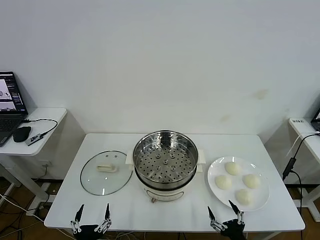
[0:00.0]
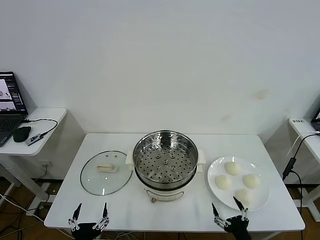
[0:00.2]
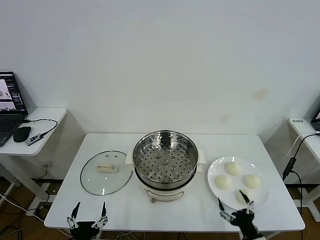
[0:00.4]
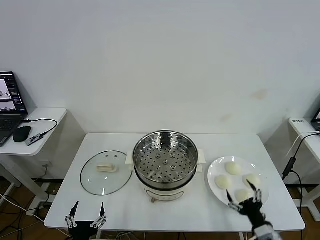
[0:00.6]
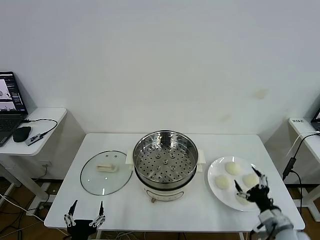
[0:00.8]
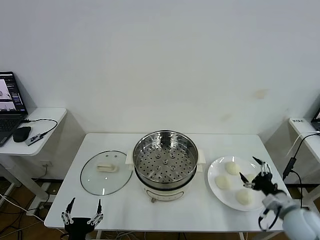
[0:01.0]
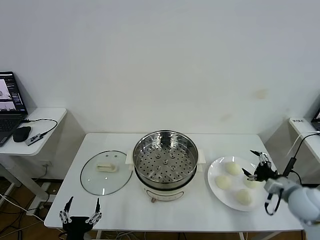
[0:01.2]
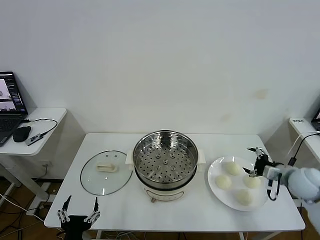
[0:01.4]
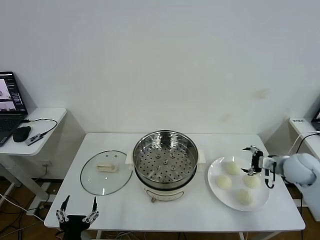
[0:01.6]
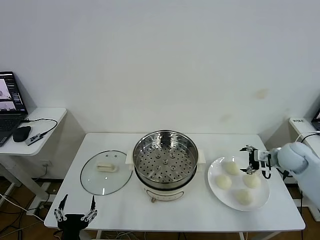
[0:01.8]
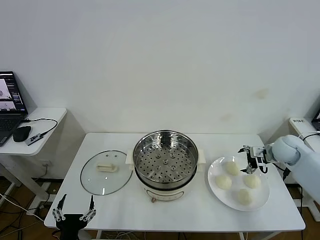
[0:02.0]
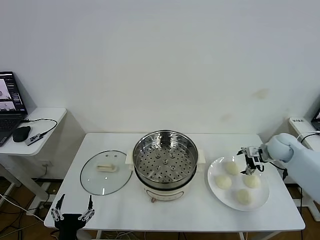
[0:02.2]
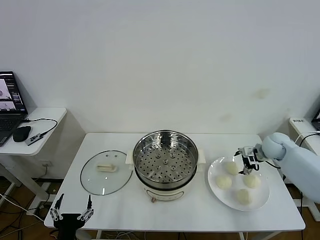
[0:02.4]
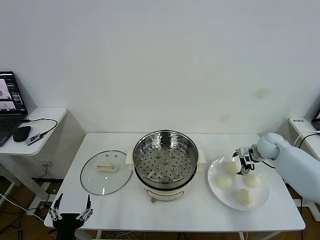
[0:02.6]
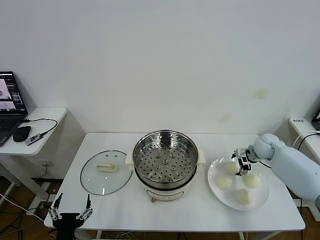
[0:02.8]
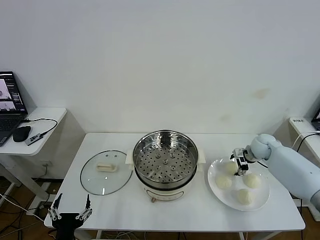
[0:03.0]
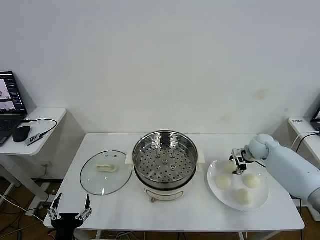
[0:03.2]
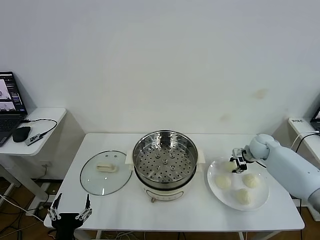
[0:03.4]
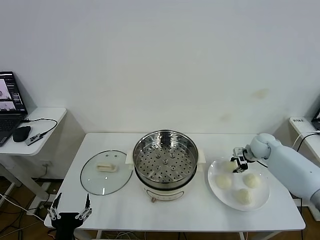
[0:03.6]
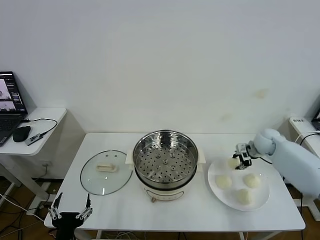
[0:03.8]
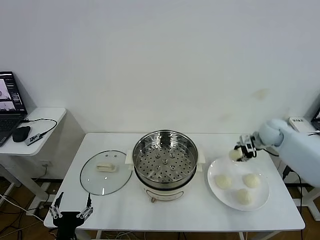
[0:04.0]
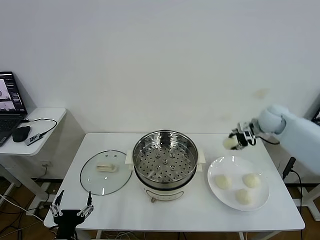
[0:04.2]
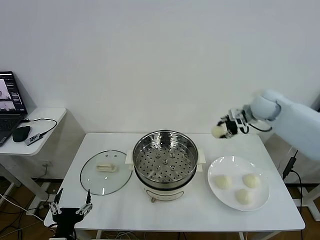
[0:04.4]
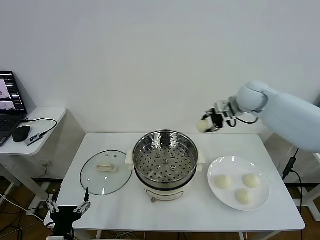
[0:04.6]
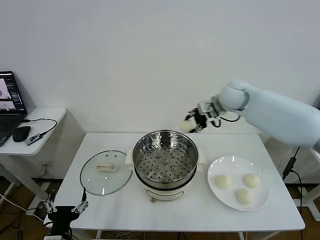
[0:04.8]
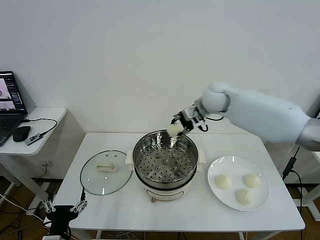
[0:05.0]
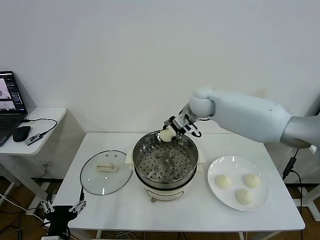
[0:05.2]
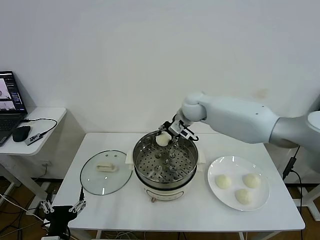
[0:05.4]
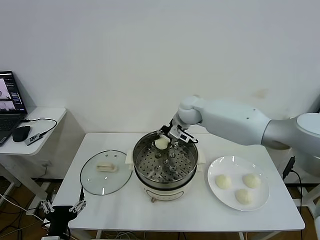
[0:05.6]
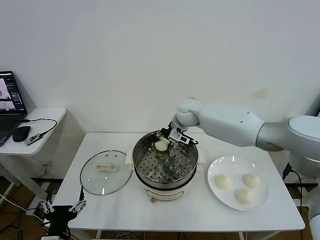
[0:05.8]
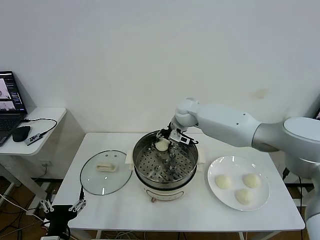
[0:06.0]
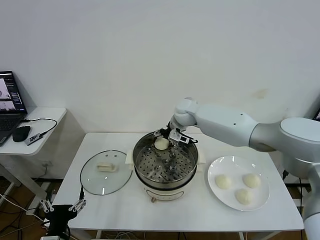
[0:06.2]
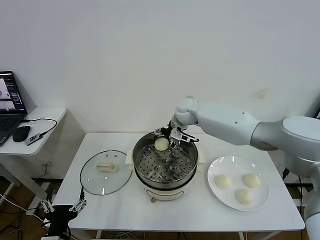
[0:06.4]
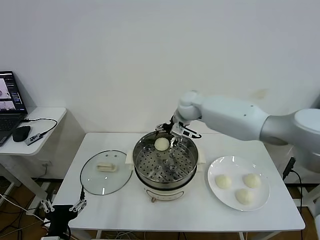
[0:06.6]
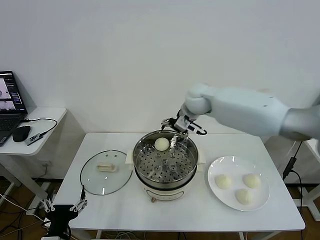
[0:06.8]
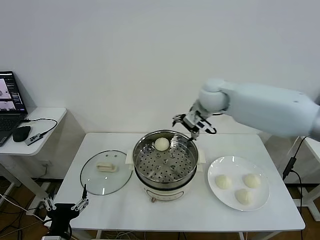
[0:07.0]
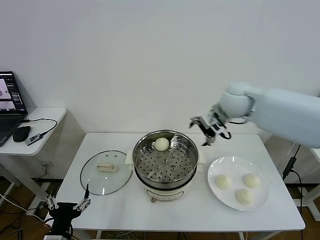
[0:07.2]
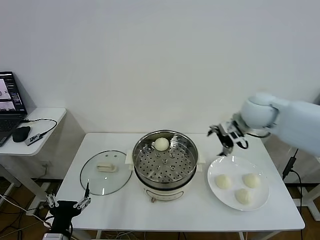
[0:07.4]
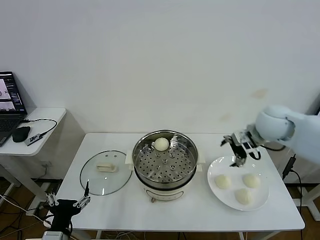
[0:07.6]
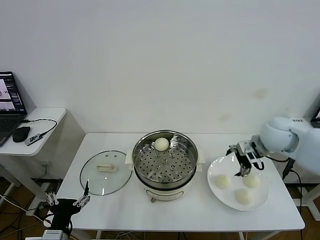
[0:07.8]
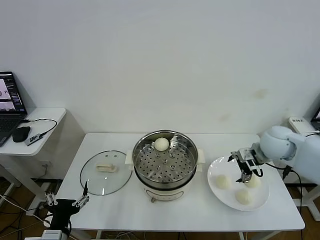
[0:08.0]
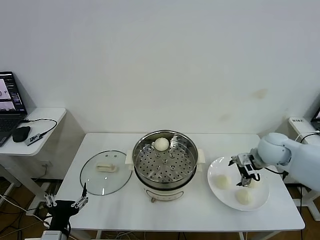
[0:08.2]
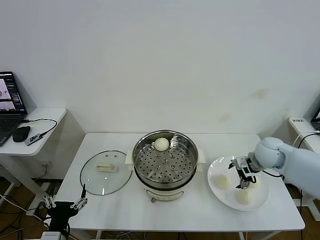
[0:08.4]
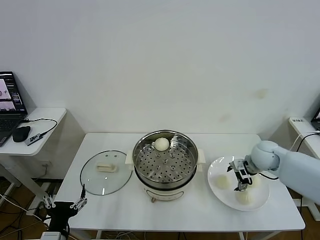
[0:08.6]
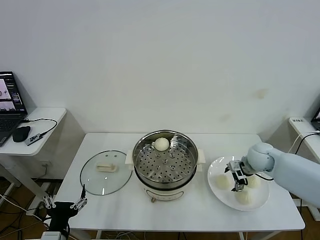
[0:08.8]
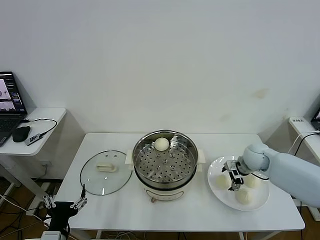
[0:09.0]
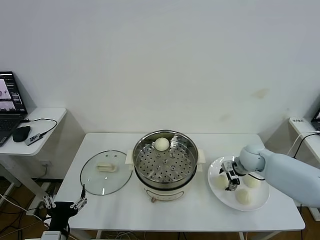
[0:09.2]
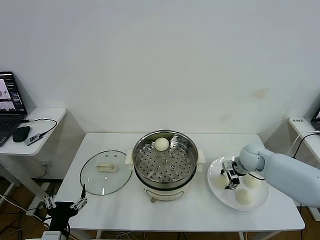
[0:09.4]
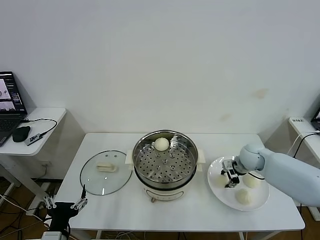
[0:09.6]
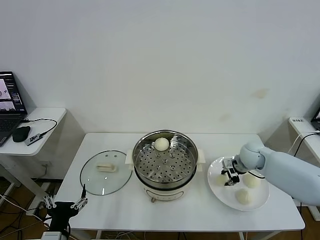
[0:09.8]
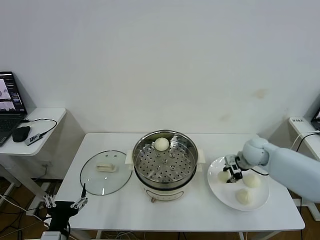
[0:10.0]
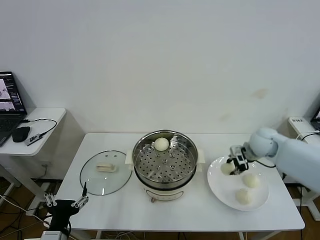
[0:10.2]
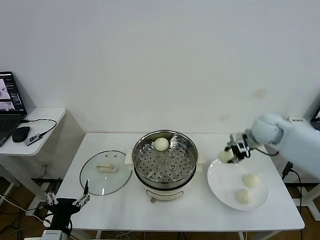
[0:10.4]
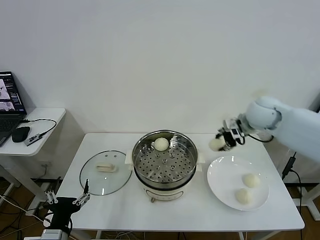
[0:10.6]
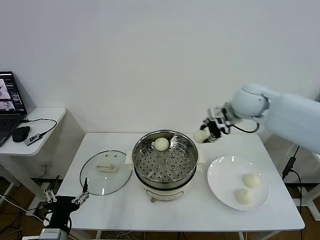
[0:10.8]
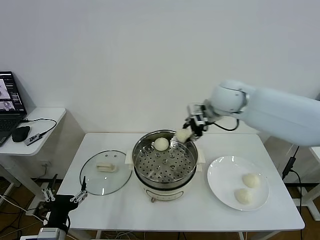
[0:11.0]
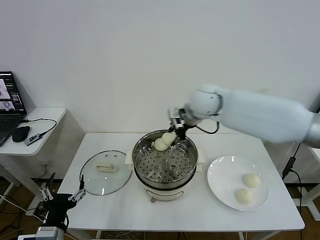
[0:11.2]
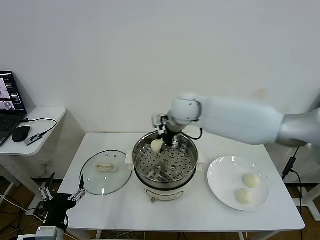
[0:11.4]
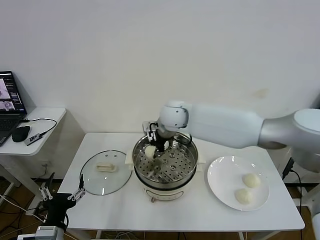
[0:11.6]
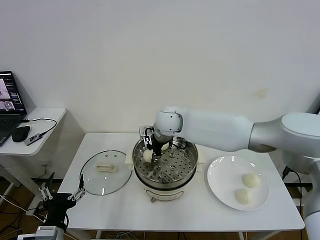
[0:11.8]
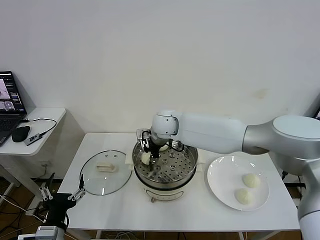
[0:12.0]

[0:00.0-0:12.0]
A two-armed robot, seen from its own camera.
Task of the whole recording: take steamed baozi put them in steamer then cover it.
Step, 0:00.0 to 0:03.2: Grasp the baozi in the plate with right gripper.
Step, 0:03.4 to 0:06.0: Place the baozi on the steamer with right gripper.
Step, 0:06.4 to 0:09.4: Grasp the baozi in the plate with right gripper.
0:01.6 to 0:03.0: The right gripper heads forward and downward, covering approximately 15 cm.
0:03.0 to 0:04.4: The right gripper goes some 20 cm upward, and closes.
0:04.4 to 0:06.0: The right gripper moves to the left, some 25 cm.
0:06.0 to 0:07.6: The right gripper travels to the right and backward by approximately 25 cm, and opens its fingers.
0:07.6 to 0:09.0: The right gripper goes about 20 cm downward.
0:09.0 to 0:10.4: The right gripper travels upward by roughly 10 cm, and closes up.
0:10.4 to 0:12.0: The right gripper moves to the left, some 35 cm.

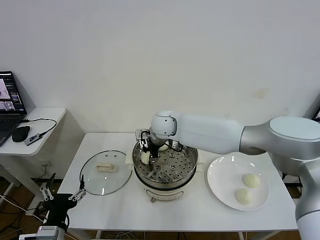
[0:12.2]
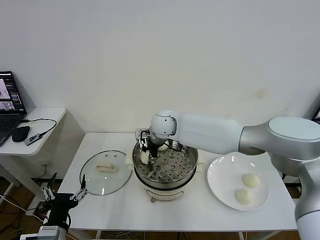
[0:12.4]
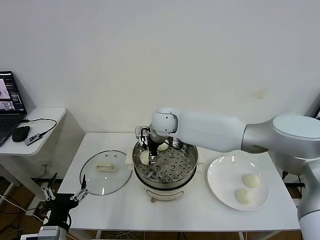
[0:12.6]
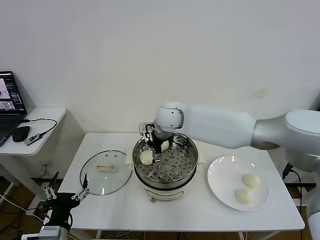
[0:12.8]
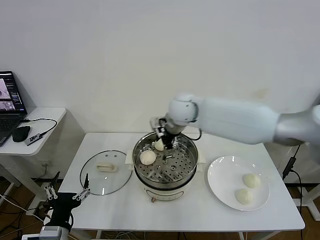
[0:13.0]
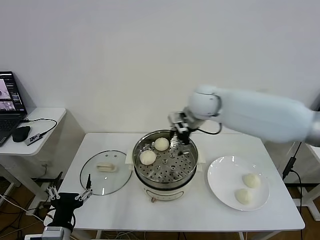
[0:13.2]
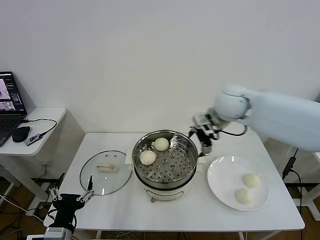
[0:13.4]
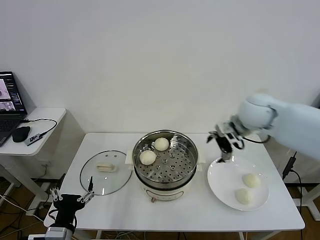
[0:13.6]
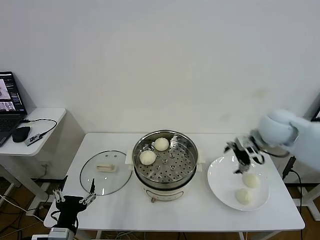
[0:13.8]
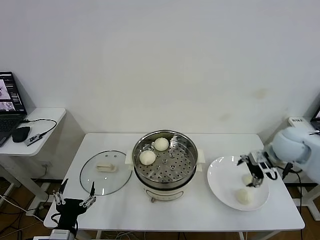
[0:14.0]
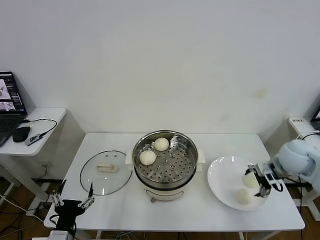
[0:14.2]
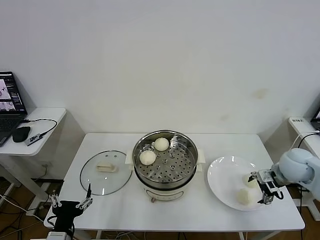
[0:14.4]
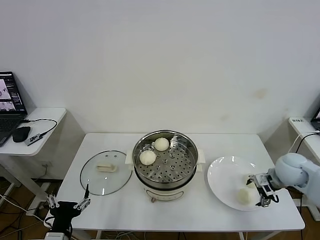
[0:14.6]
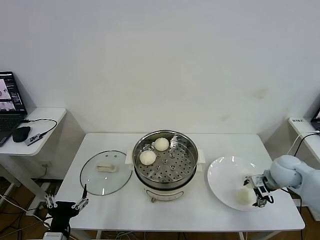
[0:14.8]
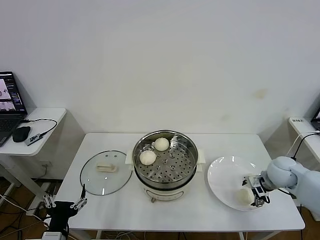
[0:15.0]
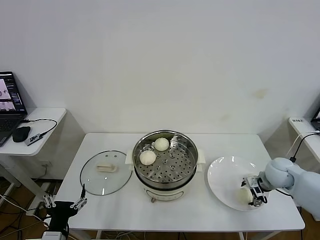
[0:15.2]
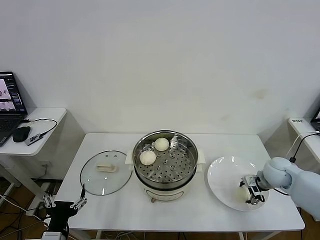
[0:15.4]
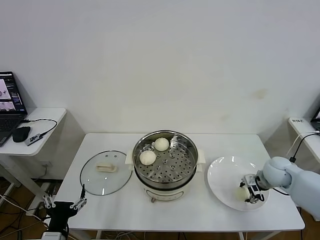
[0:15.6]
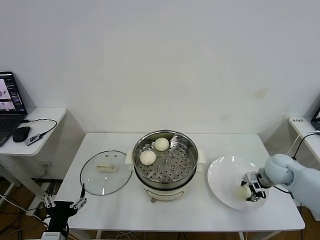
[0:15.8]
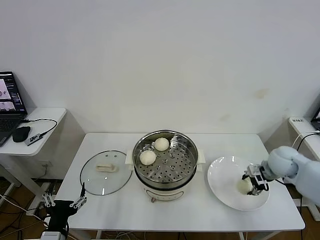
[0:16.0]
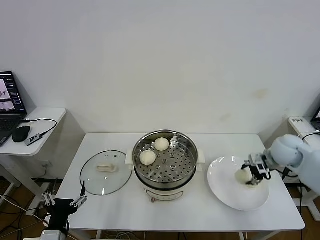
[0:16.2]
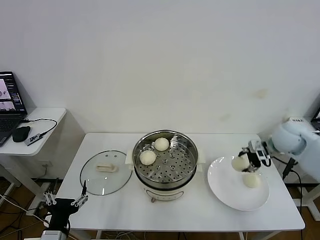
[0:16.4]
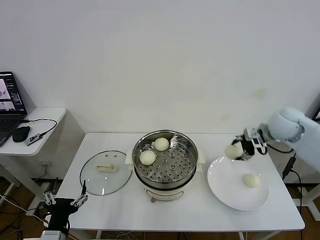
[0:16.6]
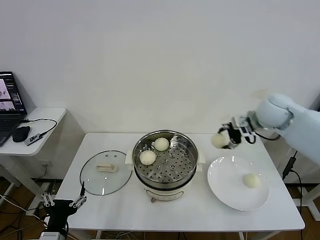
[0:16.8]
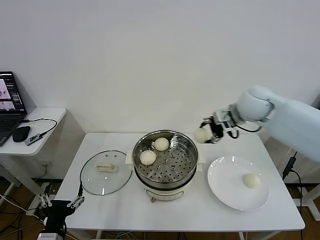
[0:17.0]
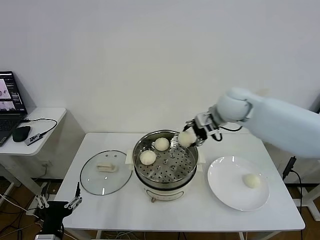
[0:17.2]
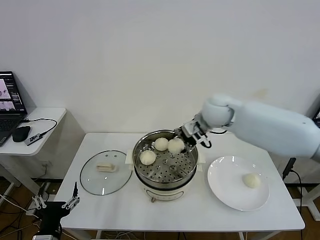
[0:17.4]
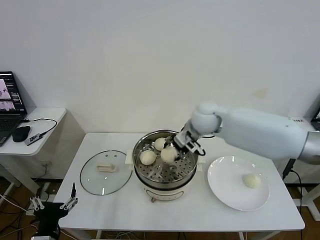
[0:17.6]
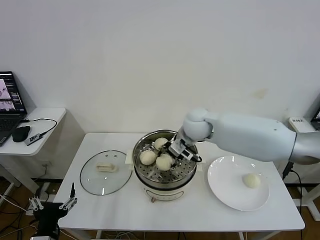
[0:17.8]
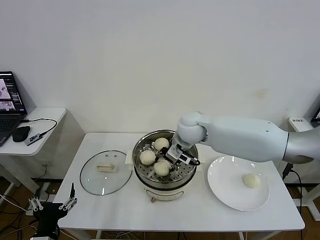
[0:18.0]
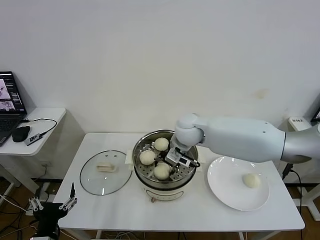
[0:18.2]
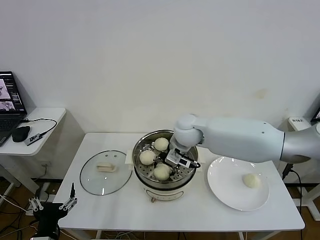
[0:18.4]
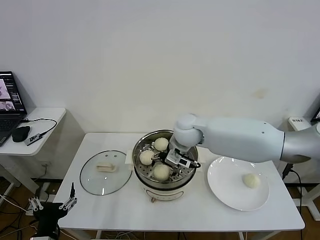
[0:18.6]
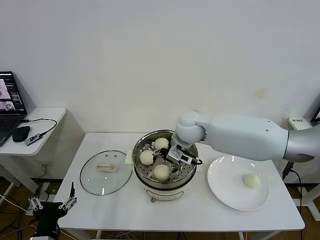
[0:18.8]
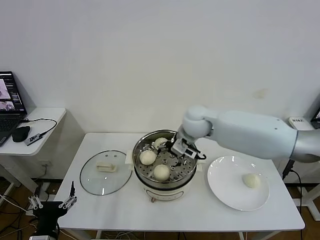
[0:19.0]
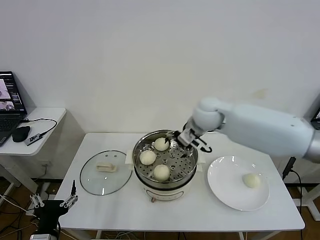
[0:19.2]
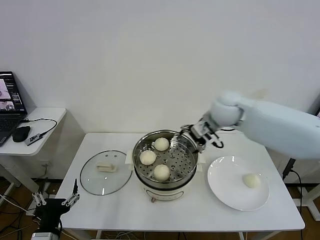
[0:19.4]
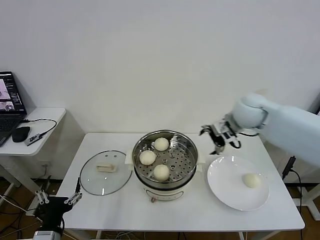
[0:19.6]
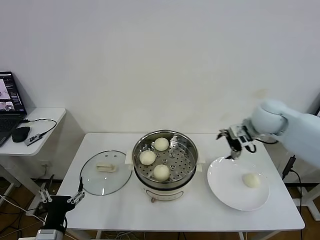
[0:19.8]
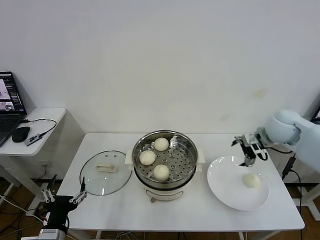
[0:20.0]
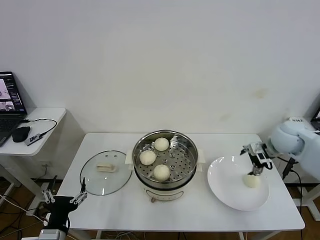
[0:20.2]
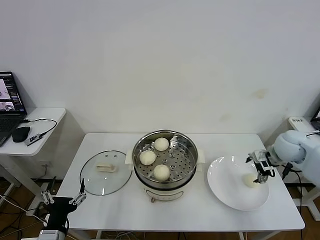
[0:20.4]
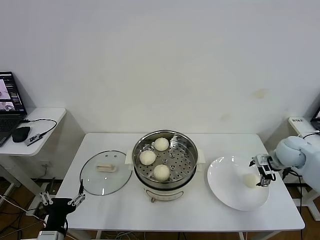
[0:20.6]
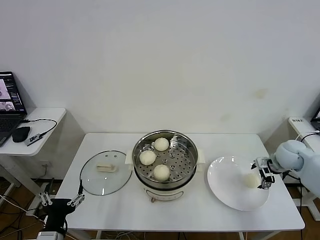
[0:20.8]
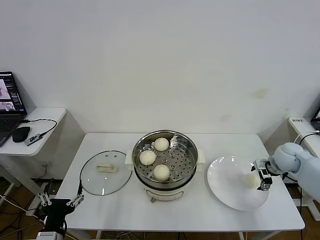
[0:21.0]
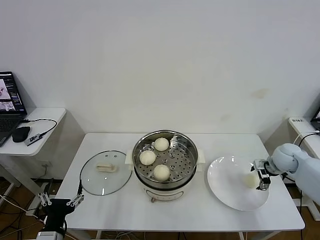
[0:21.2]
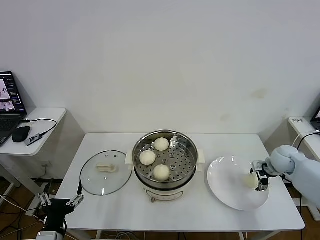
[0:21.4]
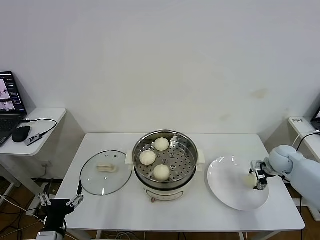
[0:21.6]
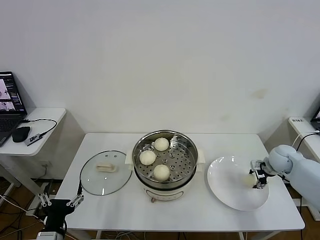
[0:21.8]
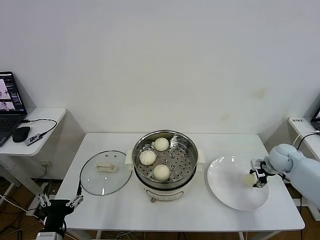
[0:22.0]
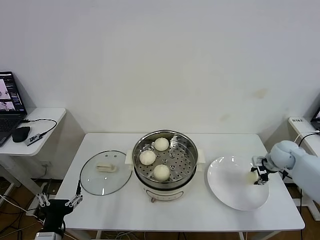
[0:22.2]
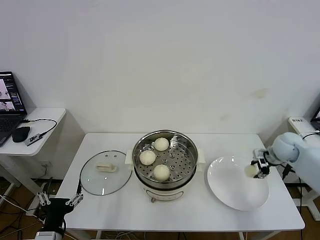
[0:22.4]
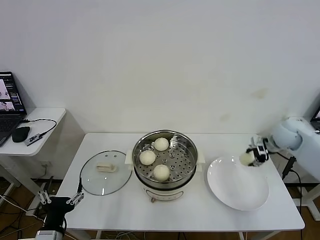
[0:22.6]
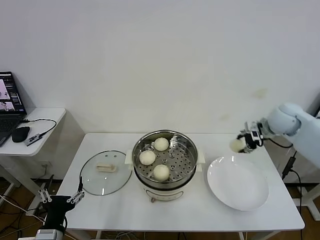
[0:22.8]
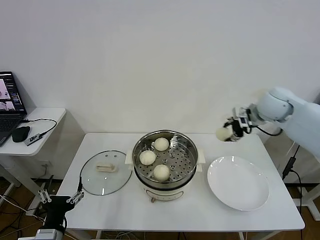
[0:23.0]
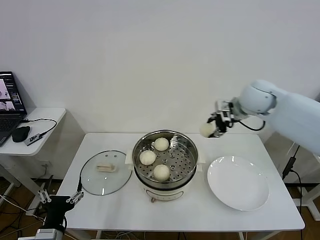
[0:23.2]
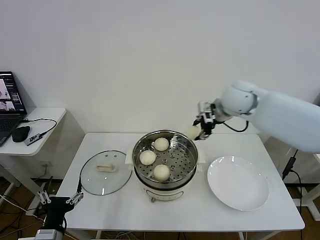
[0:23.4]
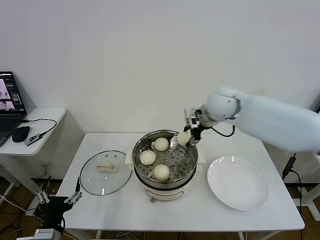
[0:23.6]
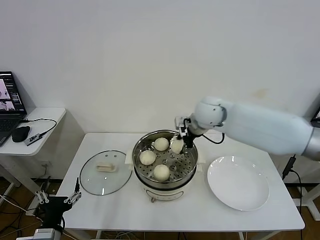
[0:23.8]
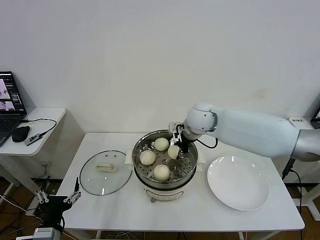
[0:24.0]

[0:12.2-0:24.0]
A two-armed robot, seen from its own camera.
Task of the whole recording: take steamed baozi put them in steamer then cover it.
Step, 0:12.8 to 0:15.6: Grasp the baozi in the plate with right gripper.
Step, 0:15.8 to 0:18.4: Place the baozi on the steamer with right gripper.
Step, 0:18.6 to 0:22.0: Grasp the baozi in the plate with right gripper.
0:12.2 to 0:13.6: The right gripper heads to the right, covering approximately 25 cm, and opens its fingers.
0:13.6 to 0:15.2: The right gripper heads downward and to the right, covering about 25 cm.
0:15.2 to 0:16.6: The right gripper heads upward and forward, covering approximately 20 cm, and closes its fingers.
0:16.6 to 0:18.2: The right gripper goes about 30 cm to the left.
0:18.2 to 0:19.6: The right gripper goes roughly 15 cm to the right, and opens.
0:19.6 to 0:21.0: The right gripper is displaced to the right and downward by about 25 cm.
0:21.0 to 0:22.6: The right gripper heads upward, covering about 5 cm, and closes its fingers.
0:22.6 to 0:24.0: The right gripper is displaced to the left by some 30 cm.
